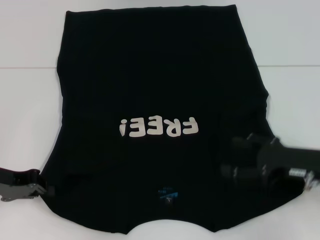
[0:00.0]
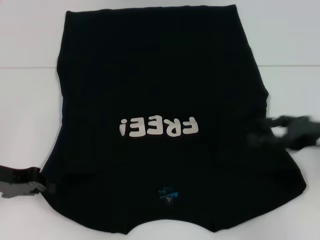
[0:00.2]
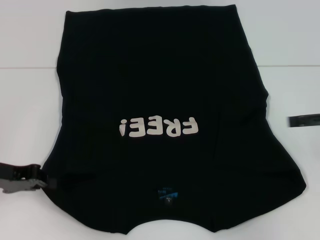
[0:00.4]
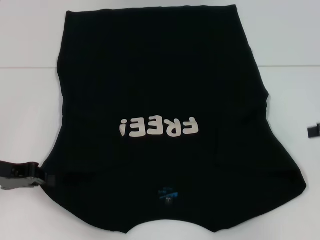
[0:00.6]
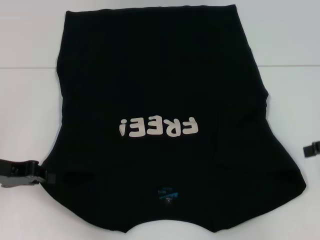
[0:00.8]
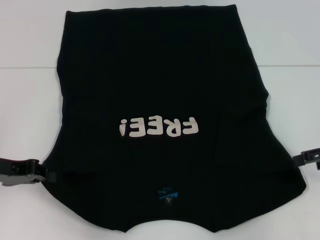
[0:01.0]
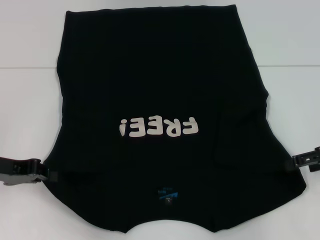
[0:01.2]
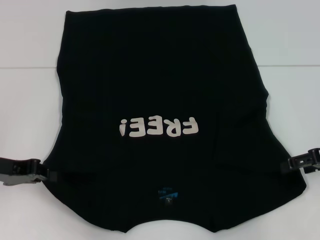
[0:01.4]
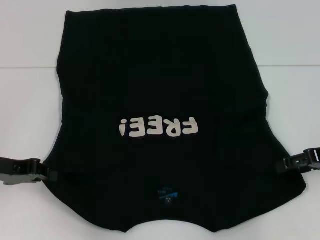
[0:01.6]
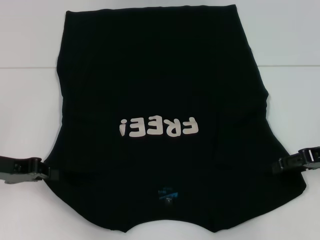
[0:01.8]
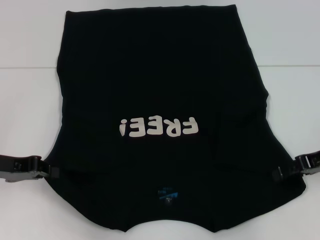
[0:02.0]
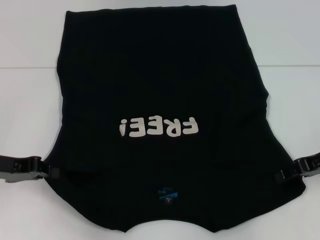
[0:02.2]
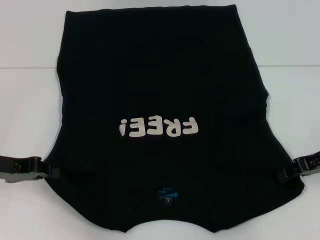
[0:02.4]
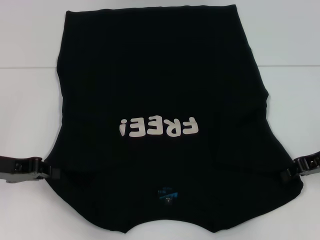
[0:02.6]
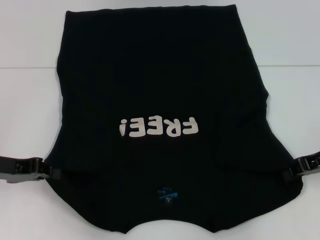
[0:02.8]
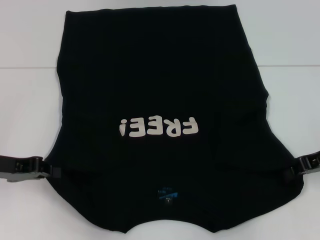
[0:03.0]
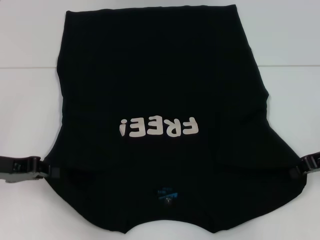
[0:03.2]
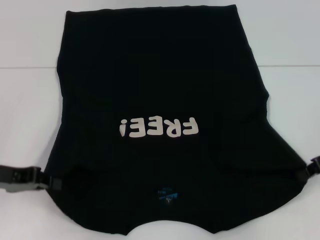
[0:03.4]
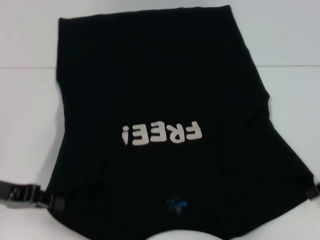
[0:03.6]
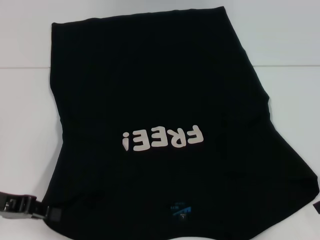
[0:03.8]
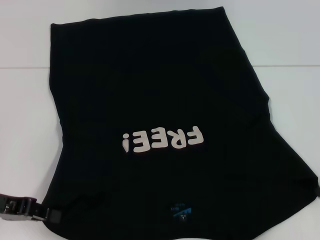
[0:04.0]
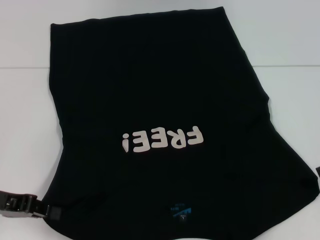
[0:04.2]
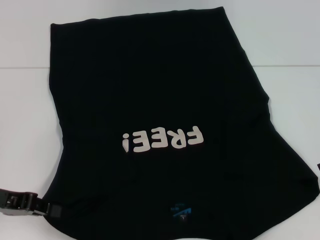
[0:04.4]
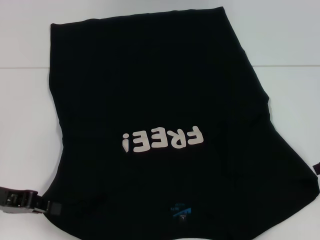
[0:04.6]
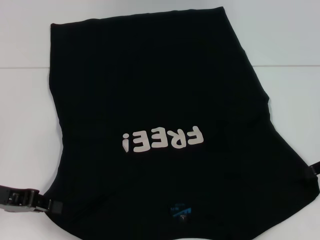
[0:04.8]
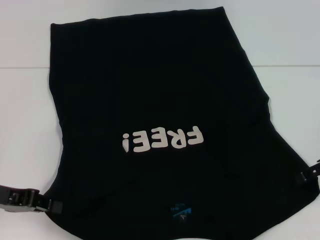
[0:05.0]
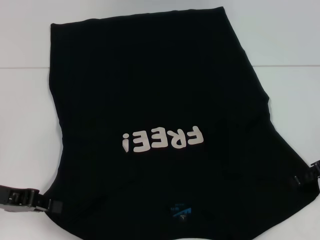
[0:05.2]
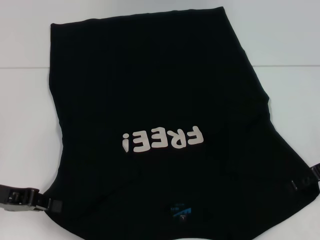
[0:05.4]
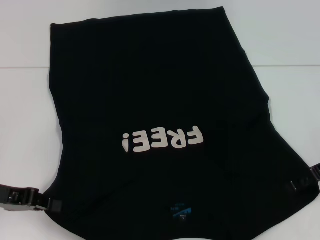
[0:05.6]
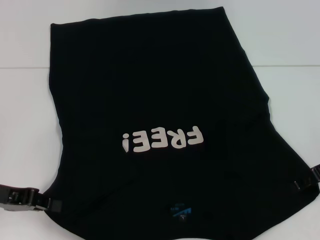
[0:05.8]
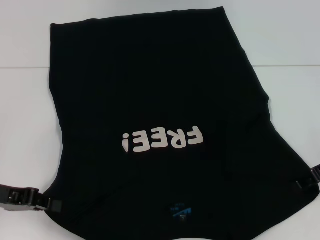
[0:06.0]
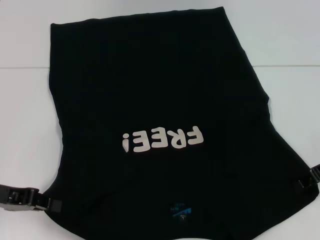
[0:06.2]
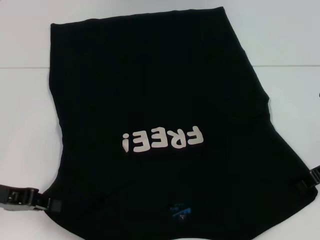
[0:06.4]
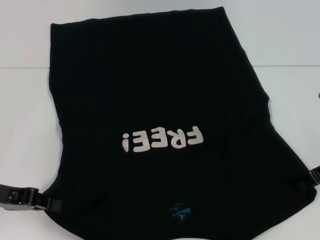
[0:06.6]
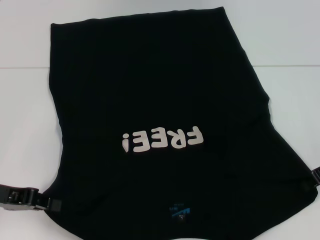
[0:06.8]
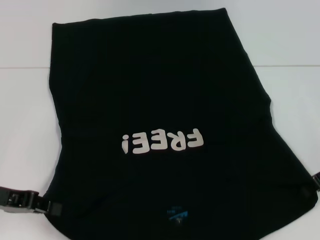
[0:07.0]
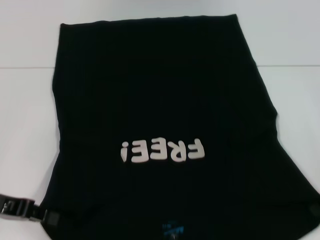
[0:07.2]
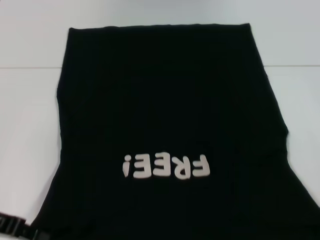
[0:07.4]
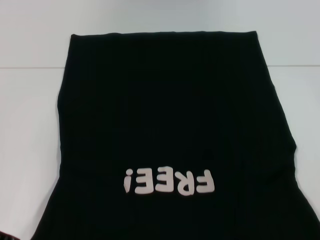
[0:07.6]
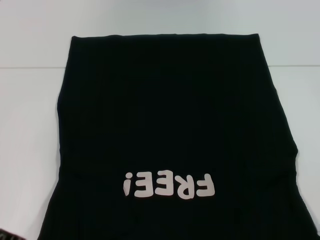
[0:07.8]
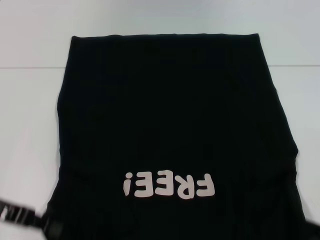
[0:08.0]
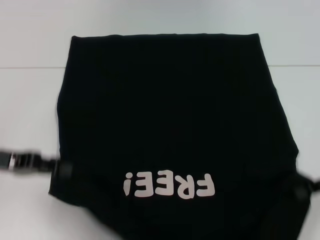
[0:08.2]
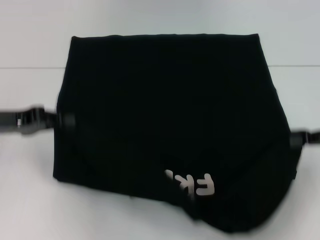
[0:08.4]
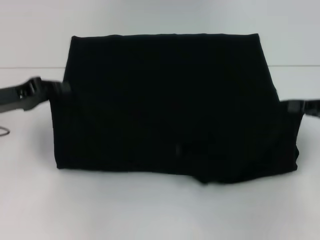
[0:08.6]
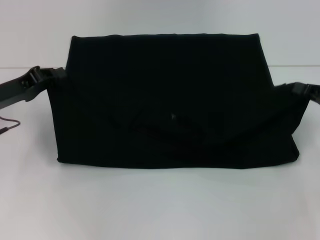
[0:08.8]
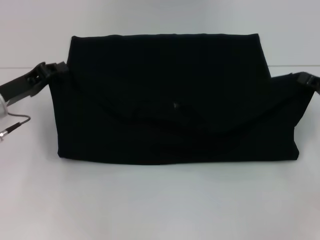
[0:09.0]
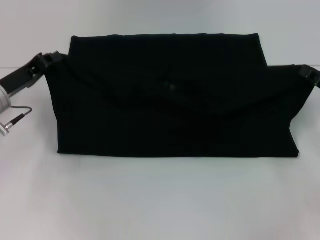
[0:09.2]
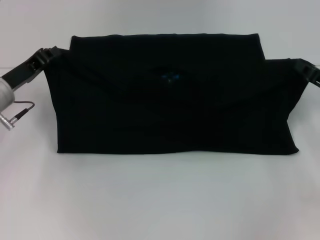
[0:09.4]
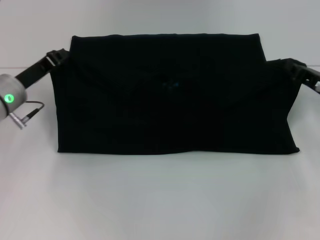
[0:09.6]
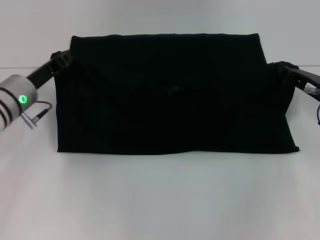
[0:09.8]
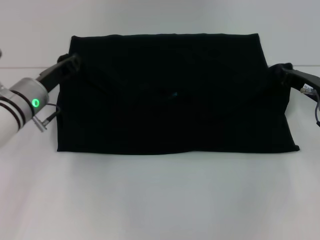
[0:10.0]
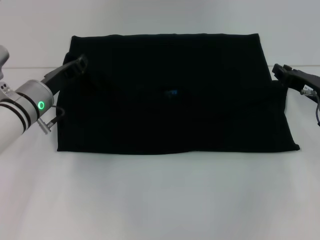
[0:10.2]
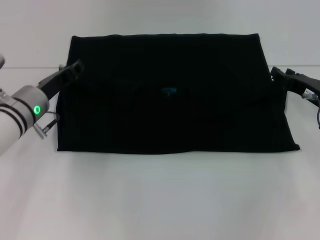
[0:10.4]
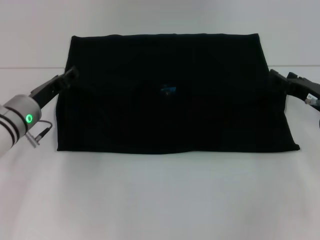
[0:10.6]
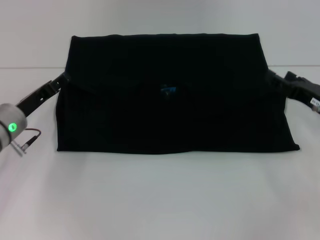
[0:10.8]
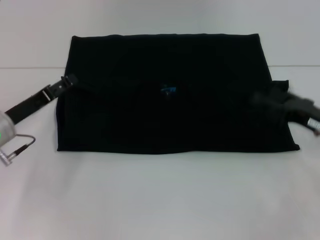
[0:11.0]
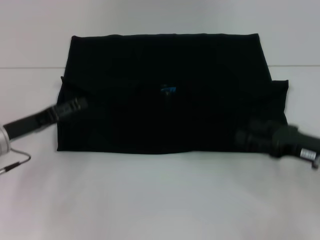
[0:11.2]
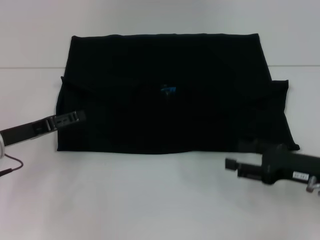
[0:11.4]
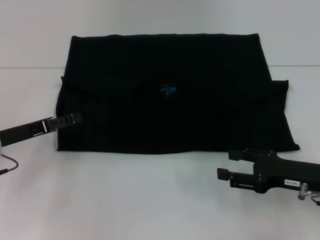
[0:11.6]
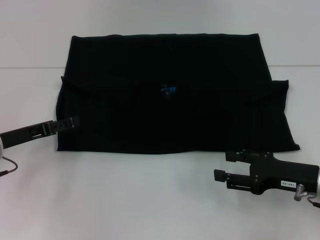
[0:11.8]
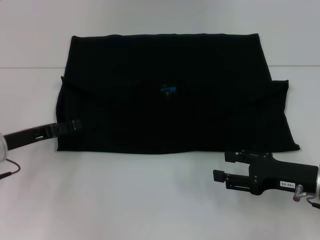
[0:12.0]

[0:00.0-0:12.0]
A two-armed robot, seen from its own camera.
Step, 0:00.0 to 0:07.0: Grab the bottom right corner with your right hand.
Step, 0:07.2 to 0:10.6: Fold the clothes with your left hand.
Step, 0:07.2 to 0:10.6: Fold the clothes with your right hand.
0:00.0 to 0:01.6: The right gripper goes some 5 cm to the right.
0:01.6 to 0:03.0: The right gripper closes up.
0:03.0 to 0:04.4: The right gripper changes place by approximately 5 cm.
0:06.0 to 0:07.6: The right gripper shifts by some 5 cm, and closes up.
0:07.6 to 0:09.0: The left gripper is displaced forward by approximately 10 cm. The right gripper changes place by roughly 5 cm.
0:09.0 to 0:10.4: The left gripper shifts roughly 5 cm to the right, while the right gripper travels to the left by some 5 cm.
0:10.4 to 0:12.0: The left gripper heads to the left and backward, covering approximately 10 cm, and opens its fingers. The right gripper heads backward, covering about 10 cm, and opens.

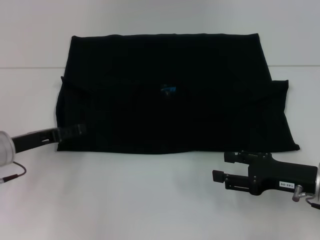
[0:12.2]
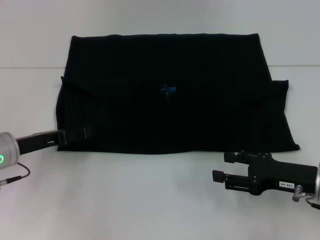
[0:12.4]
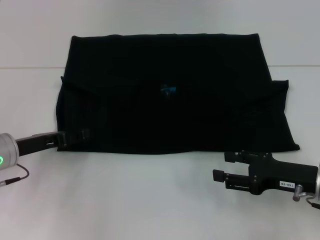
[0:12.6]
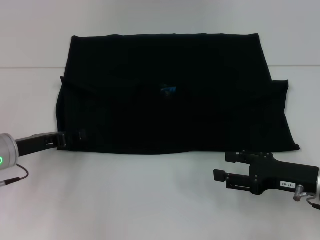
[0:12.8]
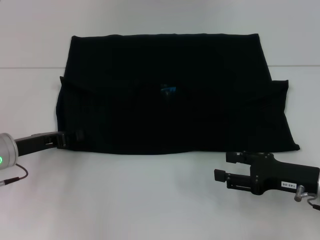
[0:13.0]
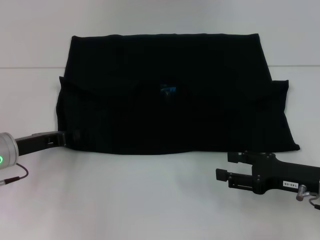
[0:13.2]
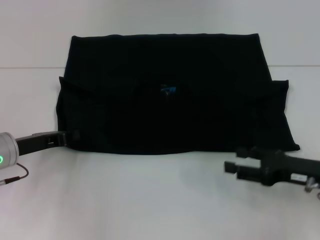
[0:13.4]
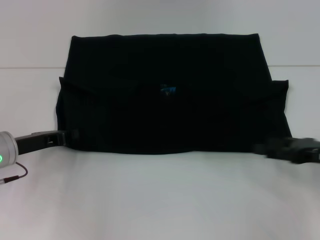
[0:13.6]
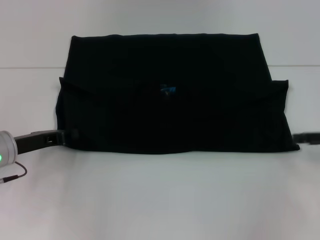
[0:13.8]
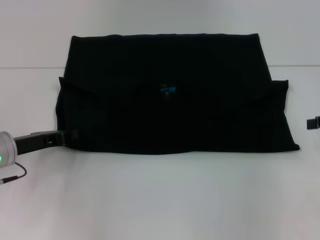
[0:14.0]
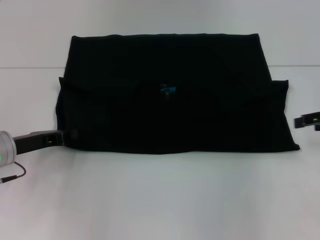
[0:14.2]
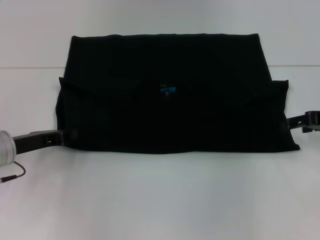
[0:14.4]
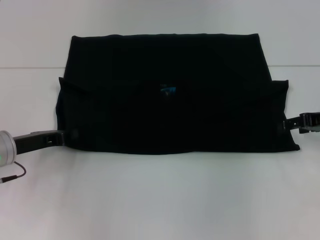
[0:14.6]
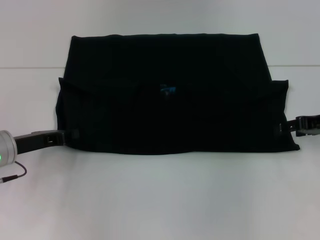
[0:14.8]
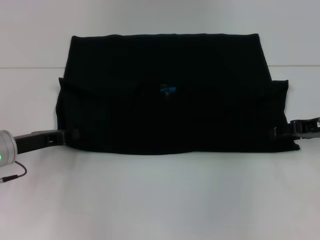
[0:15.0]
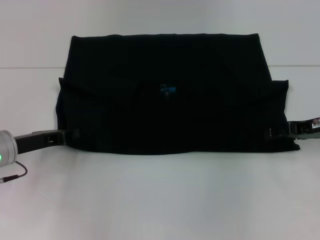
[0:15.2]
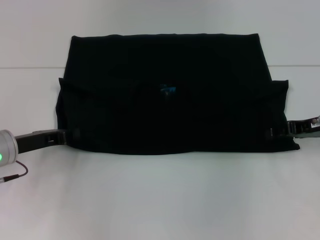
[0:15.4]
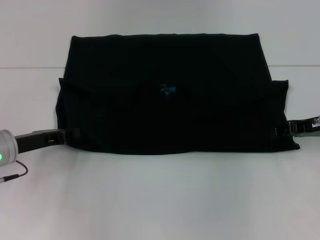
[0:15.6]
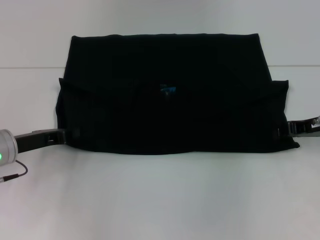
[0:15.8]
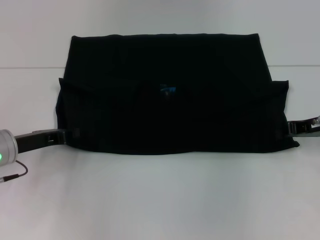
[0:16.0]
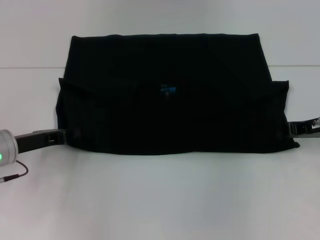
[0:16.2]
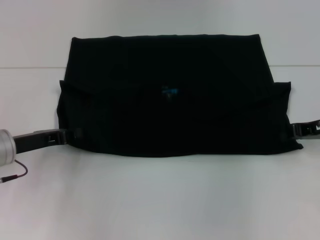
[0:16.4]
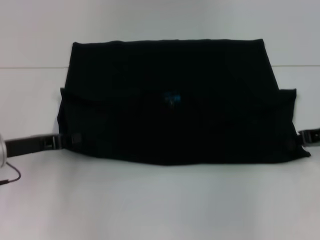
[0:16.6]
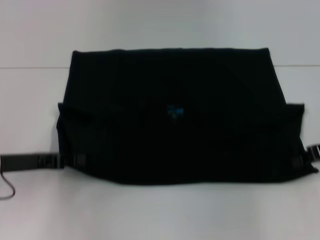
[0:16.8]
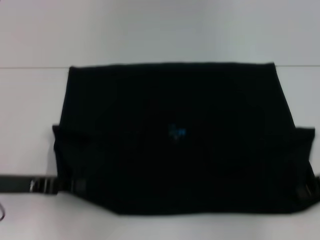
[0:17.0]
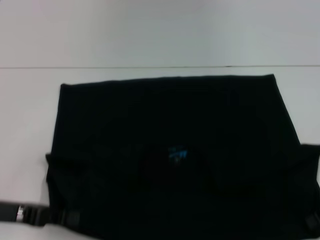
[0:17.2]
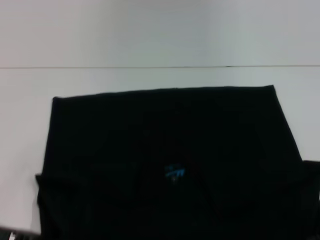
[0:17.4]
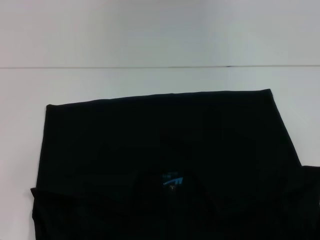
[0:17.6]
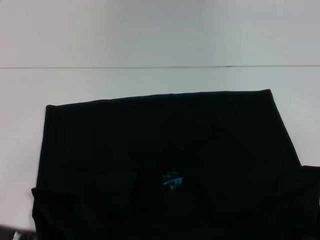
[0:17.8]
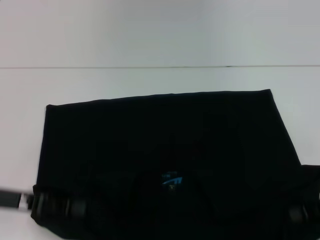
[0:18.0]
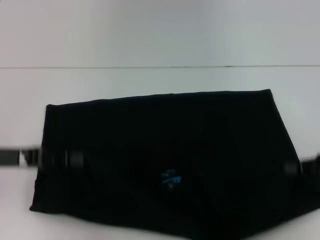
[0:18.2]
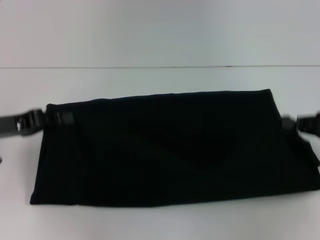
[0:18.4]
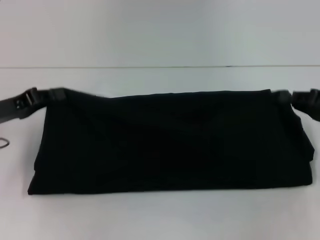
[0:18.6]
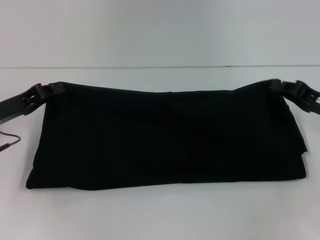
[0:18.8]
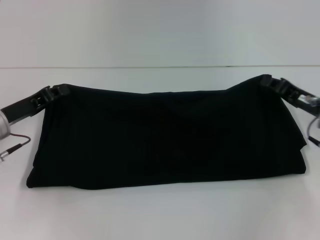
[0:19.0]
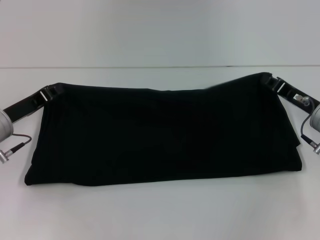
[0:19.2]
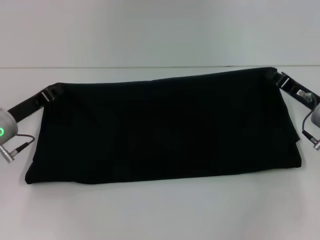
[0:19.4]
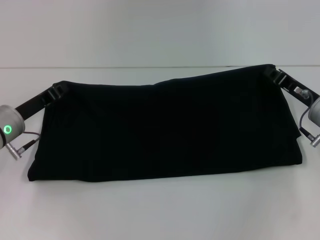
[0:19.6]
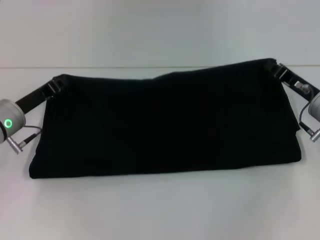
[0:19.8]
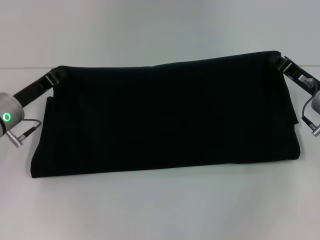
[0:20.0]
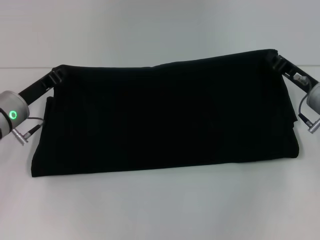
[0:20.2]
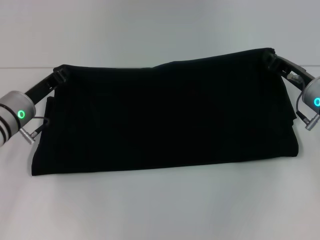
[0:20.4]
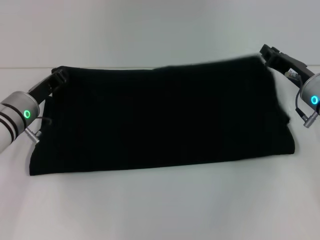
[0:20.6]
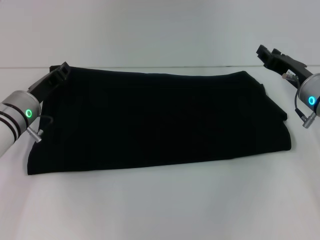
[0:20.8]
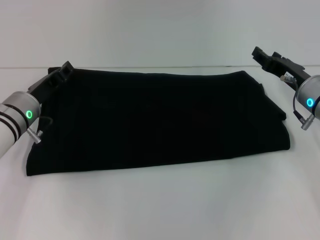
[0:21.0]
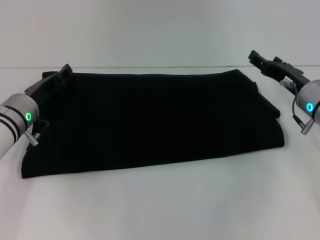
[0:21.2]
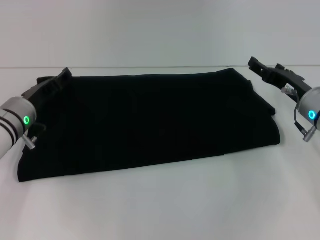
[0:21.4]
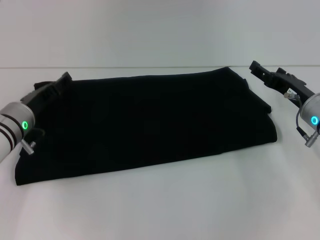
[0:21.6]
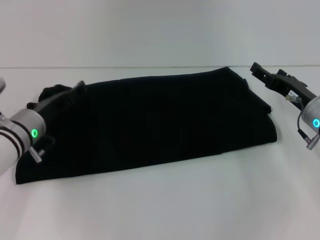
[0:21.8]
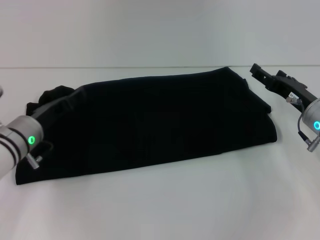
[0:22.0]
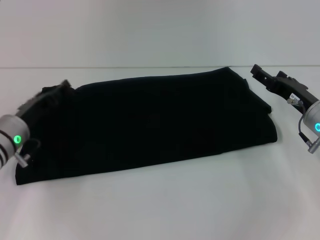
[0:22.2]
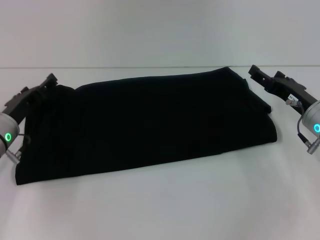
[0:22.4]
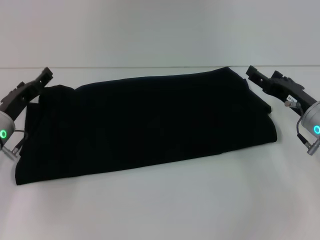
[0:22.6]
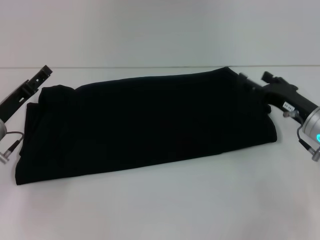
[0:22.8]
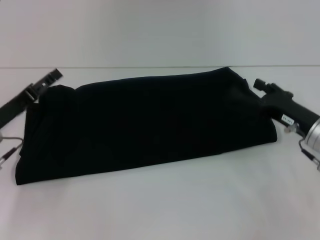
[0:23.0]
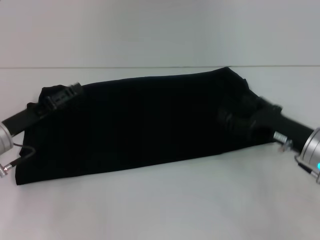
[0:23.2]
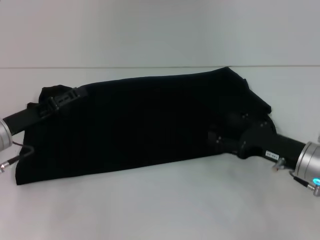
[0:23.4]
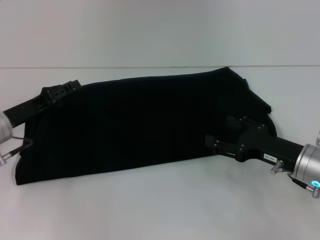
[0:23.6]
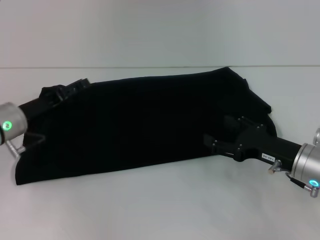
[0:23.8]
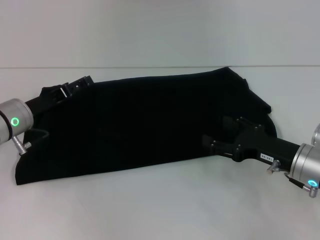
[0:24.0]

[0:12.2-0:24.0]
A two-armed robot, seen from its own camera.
Step, 0:12.2 to 0:17.6: Pull the clothes with your left hand.
Step, 0:12.2 to 0:17.6: Pull the clothes with your right hand.
Step, 0:17.8 to 0:22.8: Fold the clothes with your right hand.
0:12.2 to 0:13.6: The right gripper moves to the right, approximately 5 cm, while the left gripper closes.
0:13.6 to 0:15.2: The right gripper shifts roughly 10 cm forward.
0:15.2 to 0:16.6: The right gripper closes.
0:16.6 to 0:18.2: The right gripper goes about 5 cm backward; the left gripper shifts roughly 5 cm upward, and goes backward and returns, approximately 10 cm each way.
0:18.2 to 0:19.6: The left gripper travels forward and downward by some 10 cm. Meanwhile the right gripper is displaced to the left, forward and downward by roughly 10 cm.
0:19.6 to 0:21.0: The right gripper opens up.
0:21.0 to 0:22.6: The left gripper opens. The right gripper opens up.
0:22.6 to 0:24.0: The right gripper goes some 5 cm backward.
